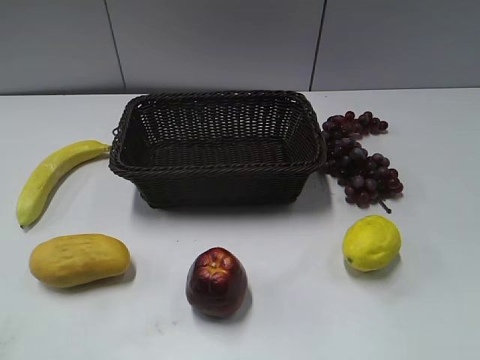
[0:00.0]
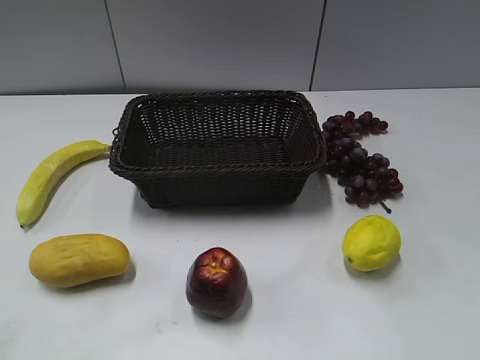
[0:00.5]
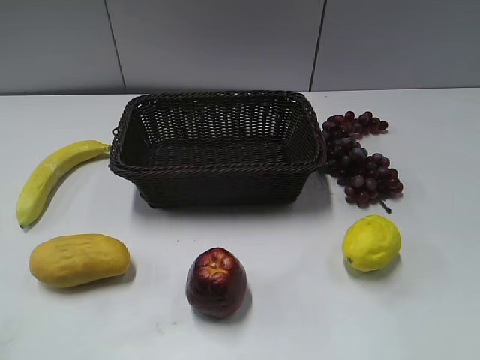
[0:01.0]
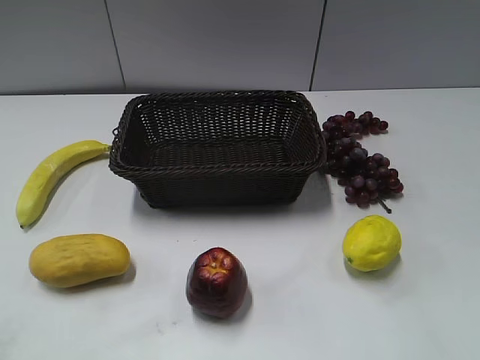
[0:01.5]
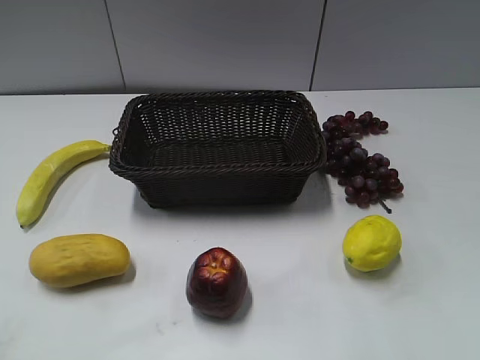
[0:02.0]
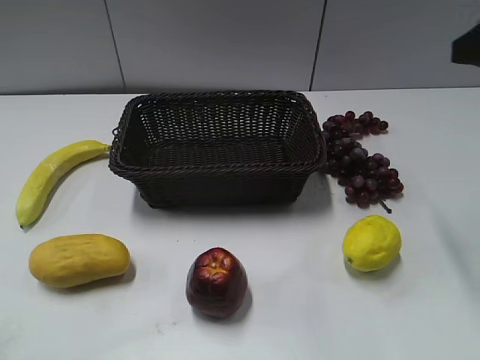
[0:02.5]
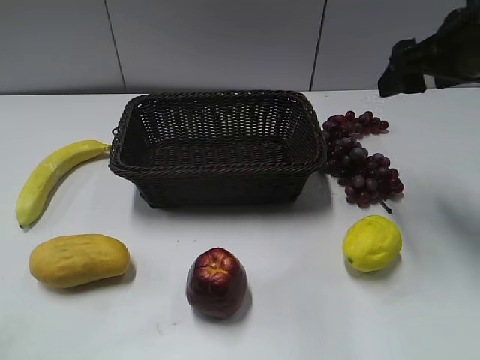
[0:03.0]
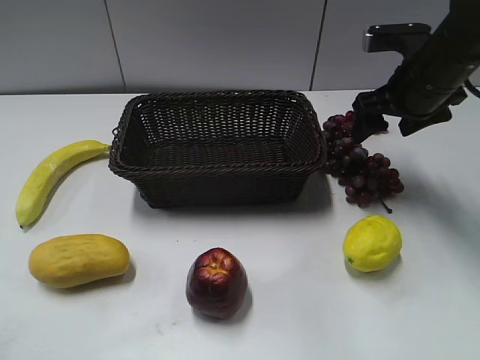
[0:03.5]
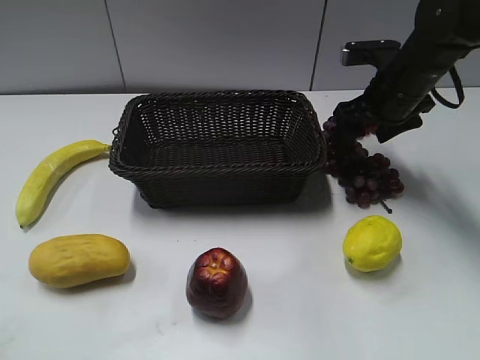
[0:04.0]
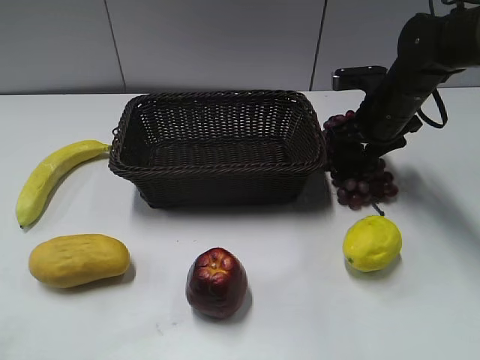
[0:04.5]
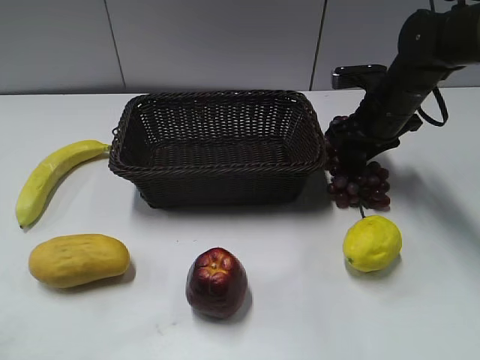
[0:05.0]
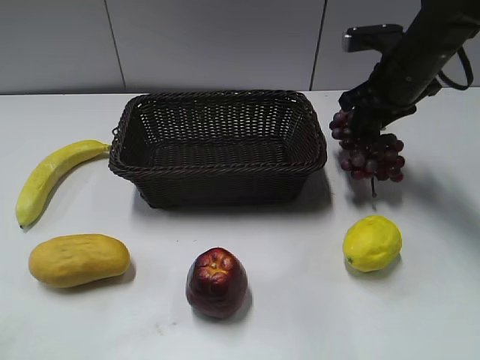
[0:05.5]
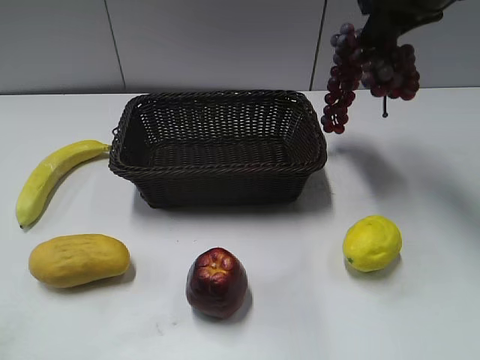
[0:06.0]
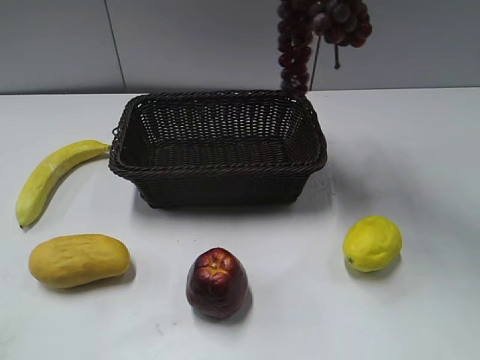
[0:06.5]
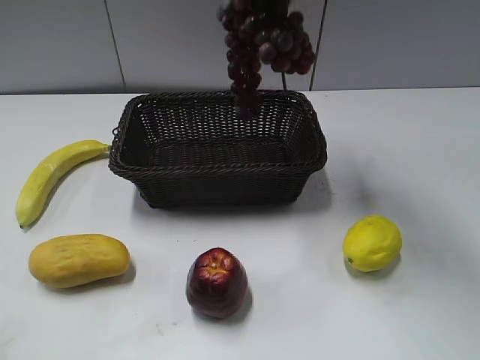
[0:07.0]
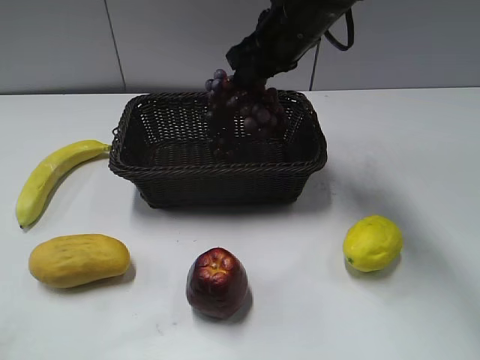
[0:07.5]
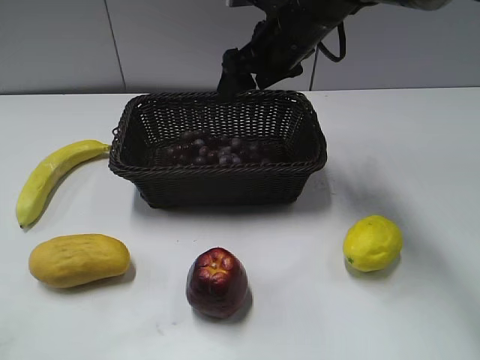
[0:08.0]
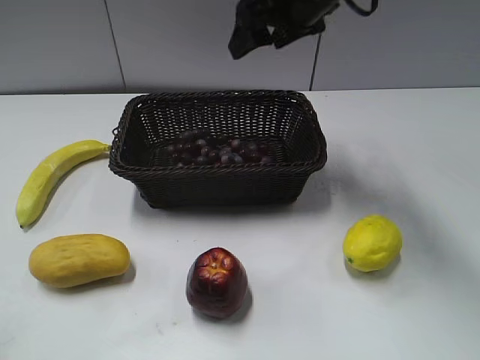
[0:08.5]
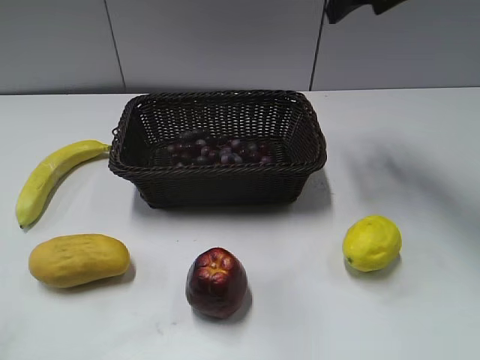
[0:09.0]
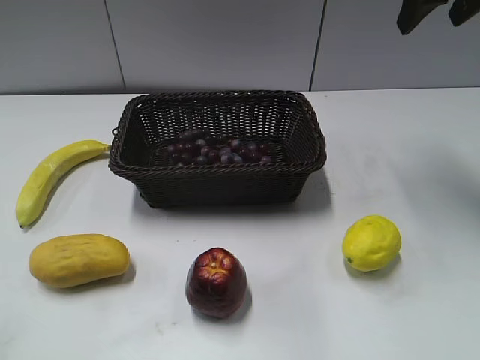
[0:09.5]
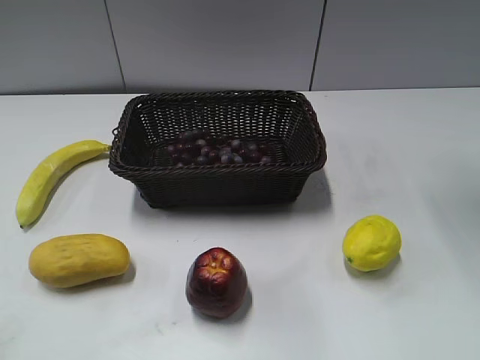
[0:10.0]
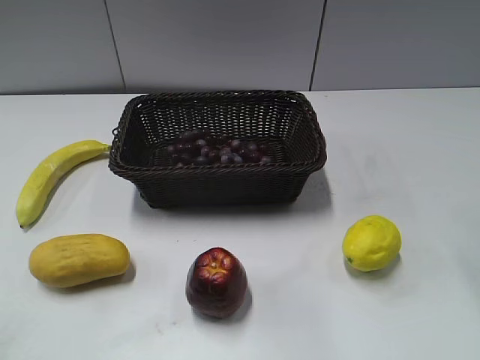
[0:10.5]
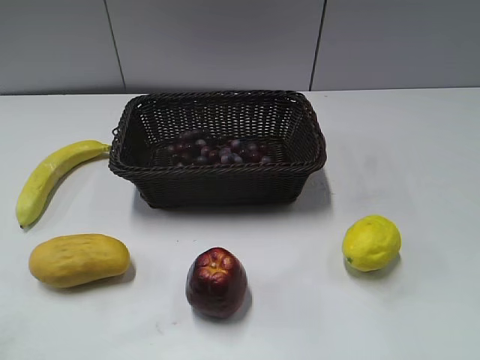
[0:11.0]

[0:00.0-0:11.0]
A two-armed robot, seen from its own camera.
Step, 0:02.5 to 0:04.5: Grasp the grape with right gripper.
Step, 0:05.0 to 0:07.5: Place the grape in the basket with right gripper.
0:02.0 to 0:03.5: The right gripper travels forward and downward by roughly 25 cm.
0:03.5 to 0:05.5: The right gripper closes.
0:05.5 to 0:07.5: The right gripper goes roughly 15 cm to the left, and travels upward and back again, approximately 20 cm each way.
0:07.5 to 0:09.0: The right gripper shifts some 15 cm to the right and upward, and opens up.
0:09.0 to 0:11.0: The right gripper goes approximately 30 cm backward.
